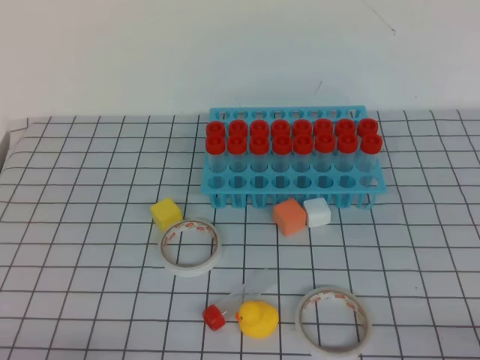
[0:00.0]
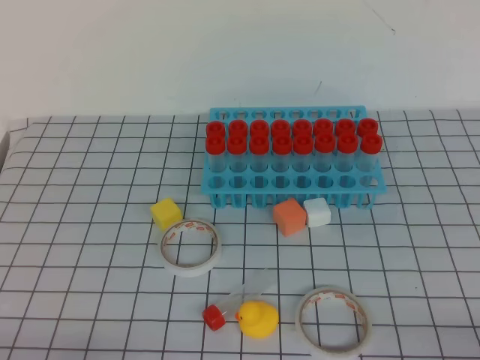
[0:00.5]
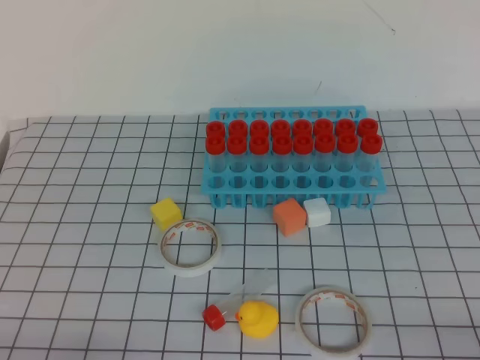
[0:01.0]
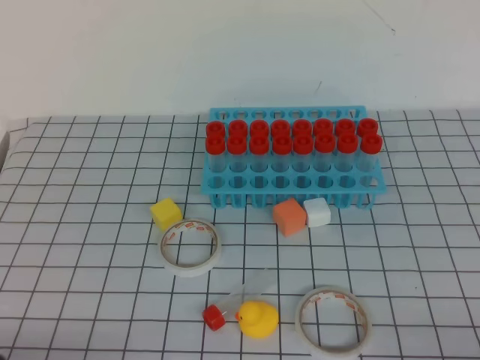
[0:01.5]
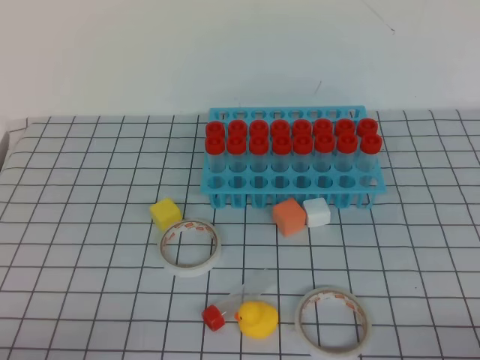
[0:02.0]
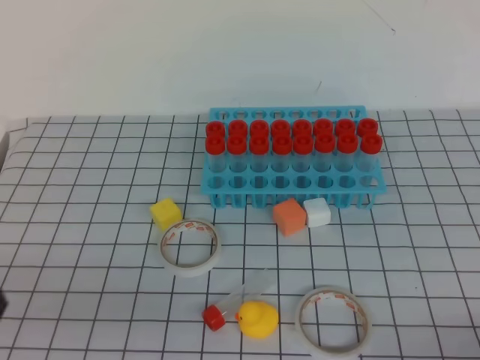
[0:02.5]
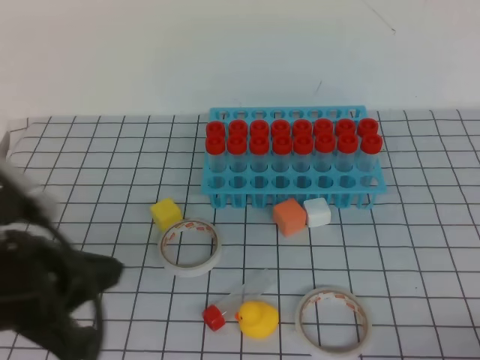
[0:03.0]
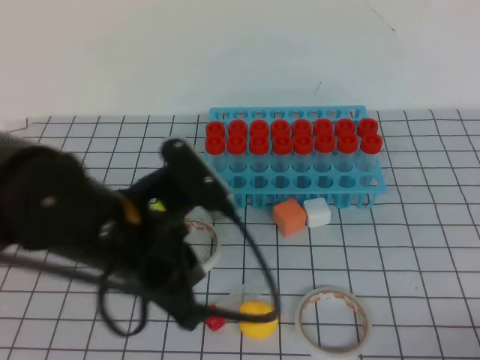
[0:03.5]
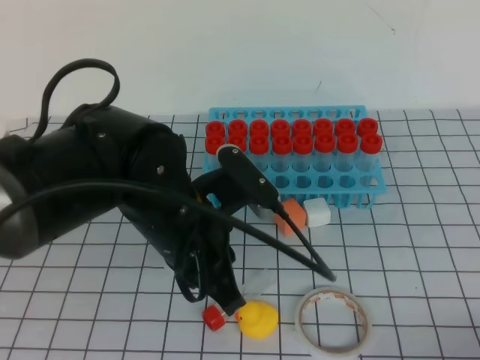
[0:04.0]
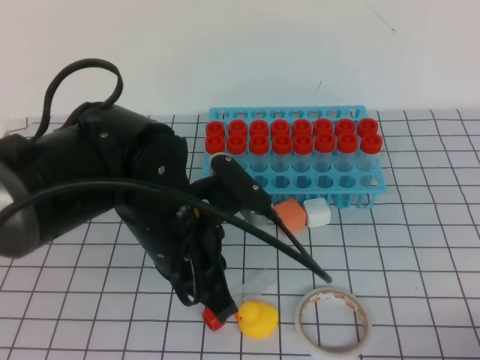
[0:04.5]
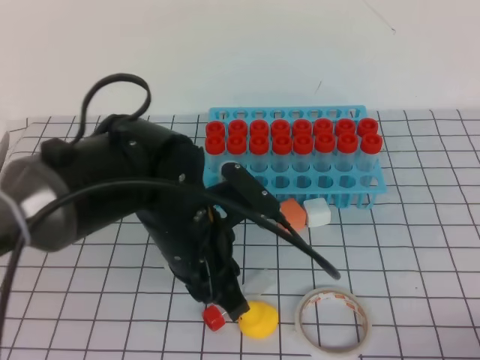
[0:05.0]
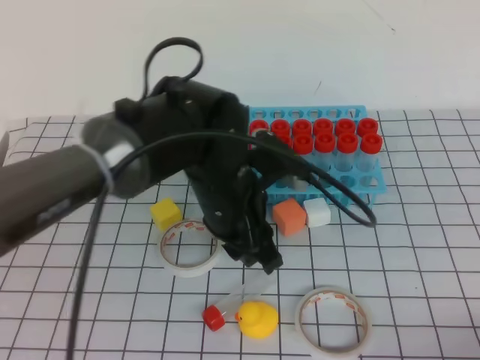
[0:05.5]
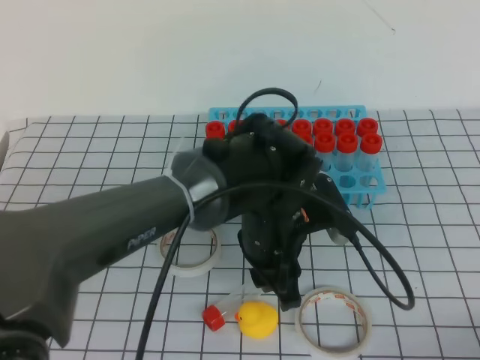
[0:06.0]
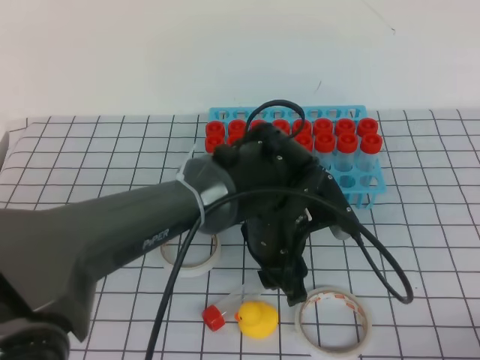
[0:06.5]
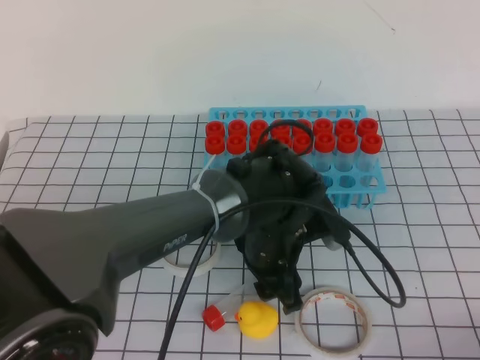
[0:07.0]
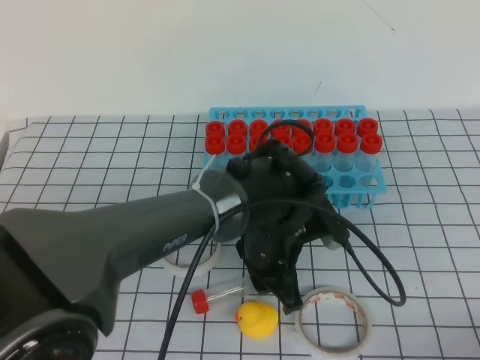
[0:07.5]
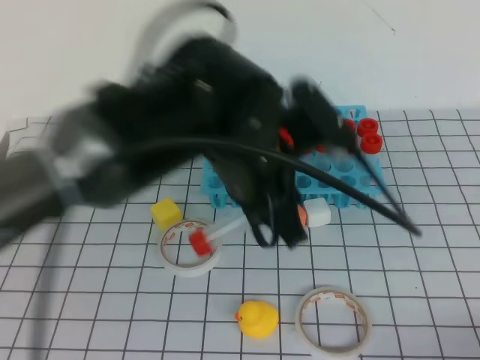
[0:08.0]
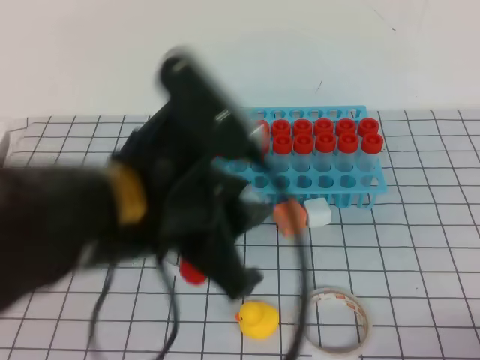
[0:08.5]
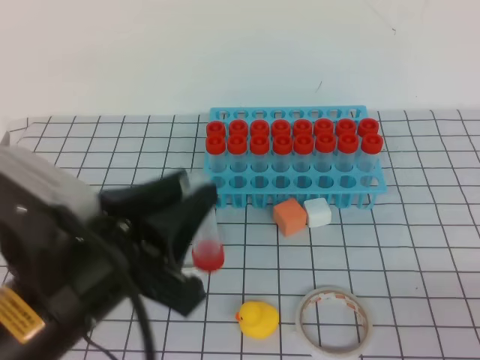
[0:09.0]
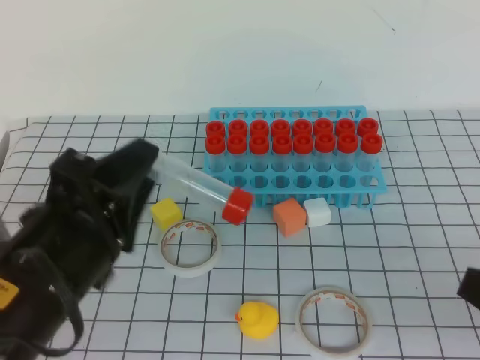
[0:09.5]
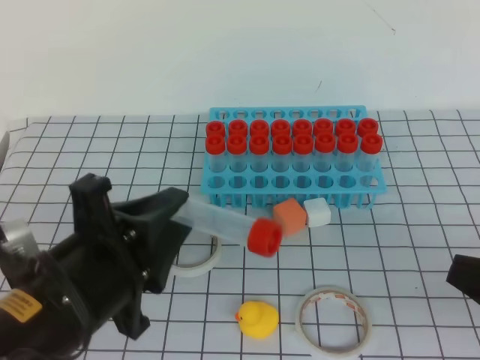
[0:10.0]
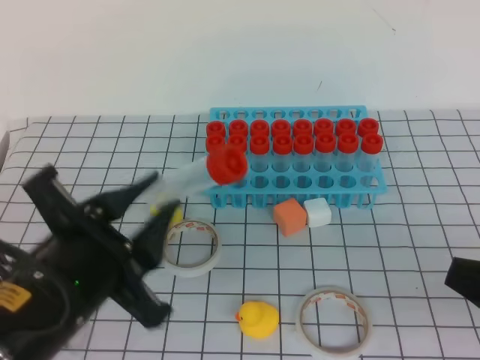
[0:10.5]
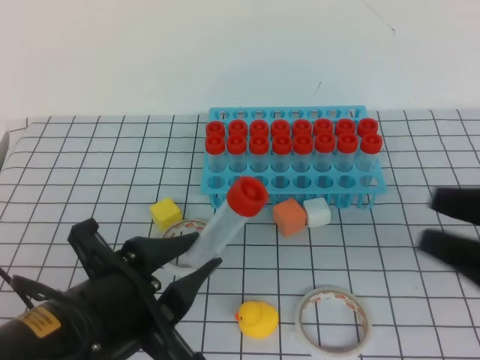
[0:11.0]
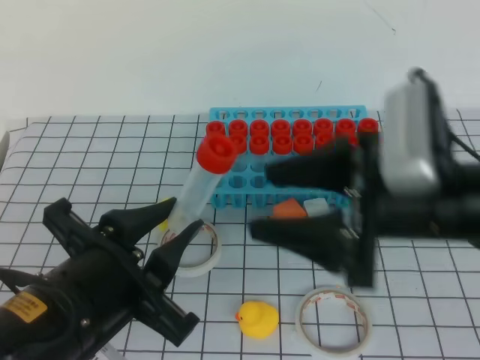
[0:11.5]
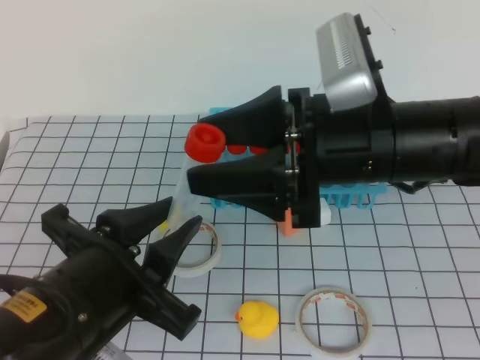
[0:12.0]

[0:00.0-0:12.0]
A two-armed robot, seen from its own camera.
2.0 to 4.0 s: The left gripper shifts approximately 30 cm forward, to the right and upward.
4.0 to 6.0 s: The left gripper moves to the right, downward and forward, approximately 10 cm, and opens its fingers.
6.0 to 8.0 s: The left gripper is displaced upward by roughly 10 cm, and opens, then closes again.
8.0 to 10.0 s: The right gripper is displaced upward and forward by roughly 10 cm. Meanwhile the left gripper goes roughly 20 cm to the left and backward.
10.0 to 12.0 s: The right gripper heads to the left and forward, covering about 20 cm, and opens its fingers.

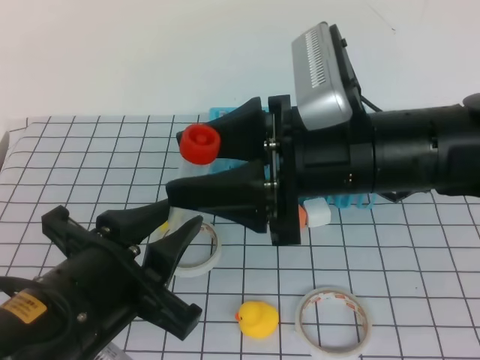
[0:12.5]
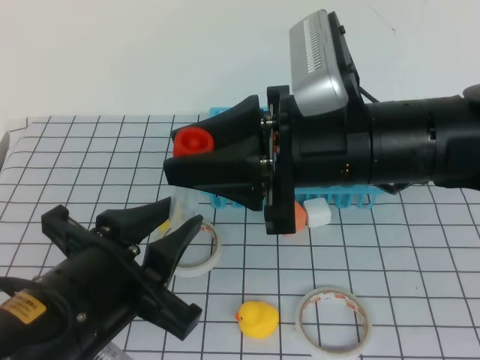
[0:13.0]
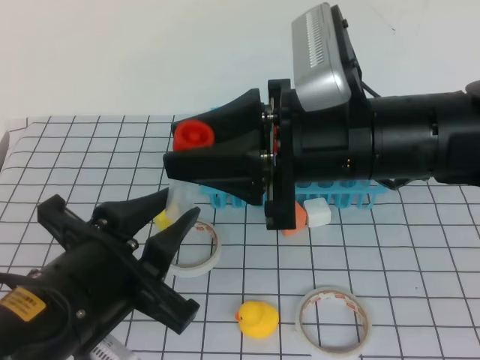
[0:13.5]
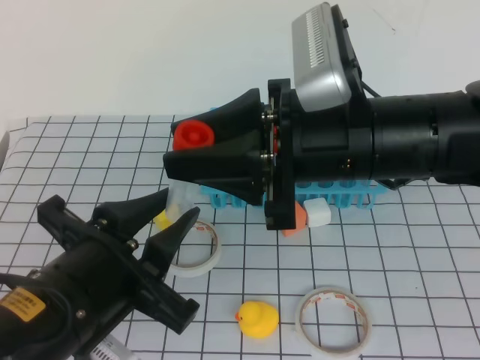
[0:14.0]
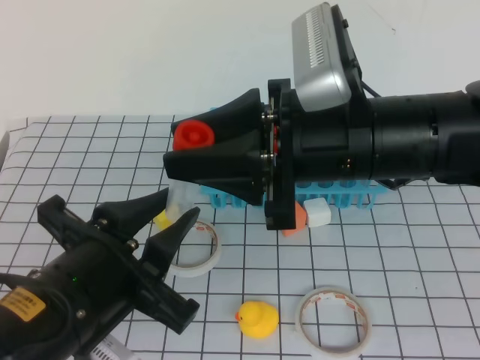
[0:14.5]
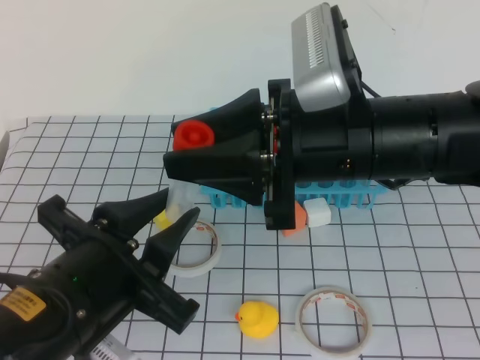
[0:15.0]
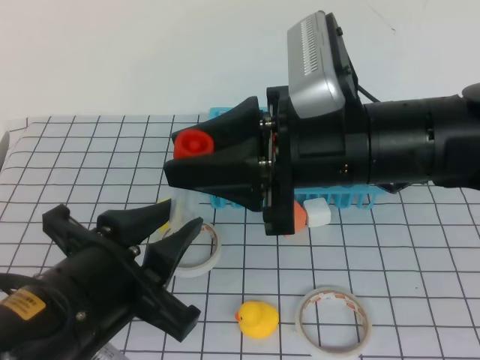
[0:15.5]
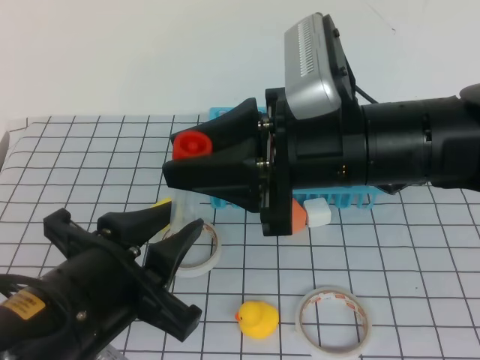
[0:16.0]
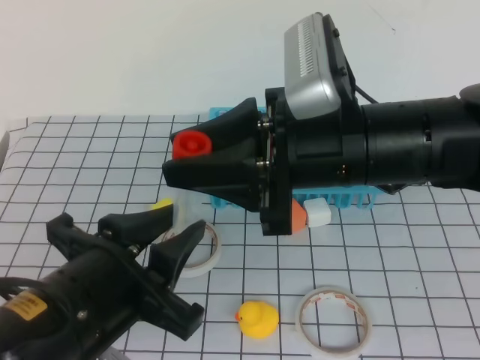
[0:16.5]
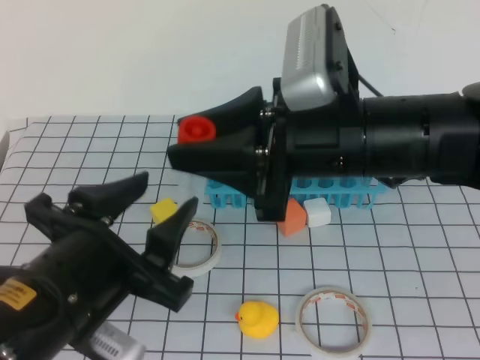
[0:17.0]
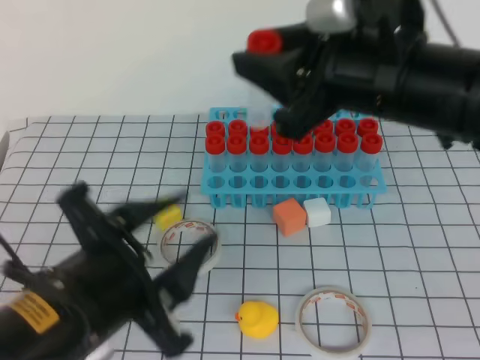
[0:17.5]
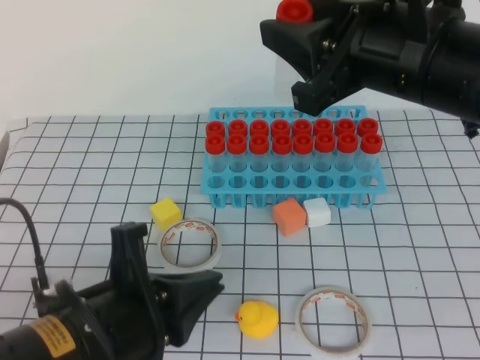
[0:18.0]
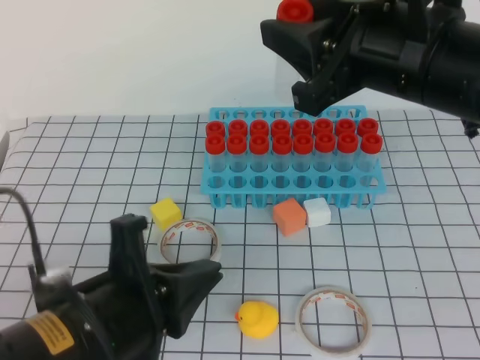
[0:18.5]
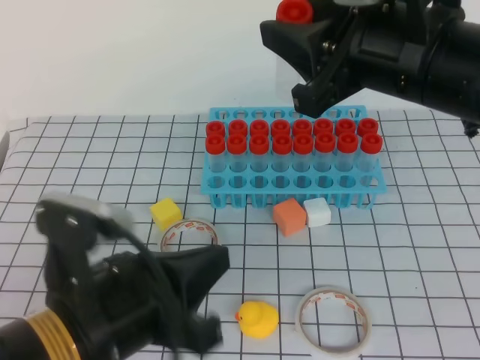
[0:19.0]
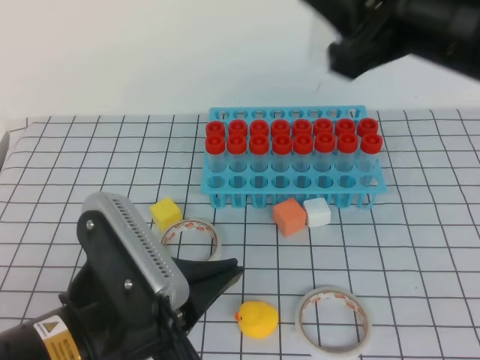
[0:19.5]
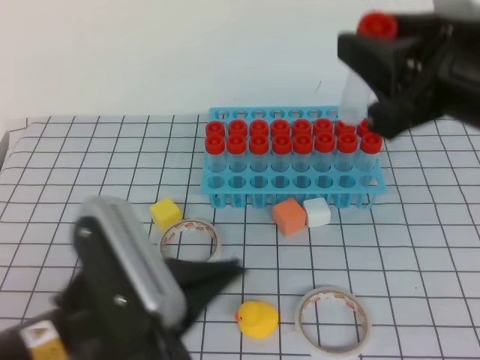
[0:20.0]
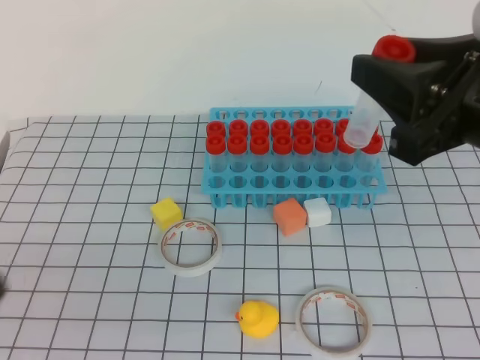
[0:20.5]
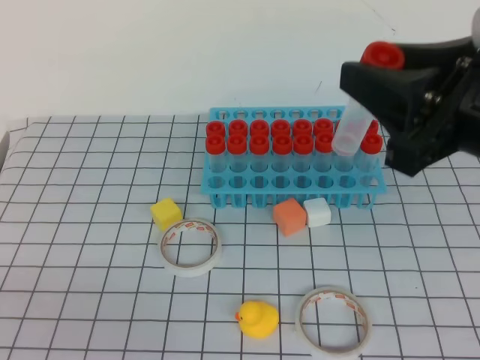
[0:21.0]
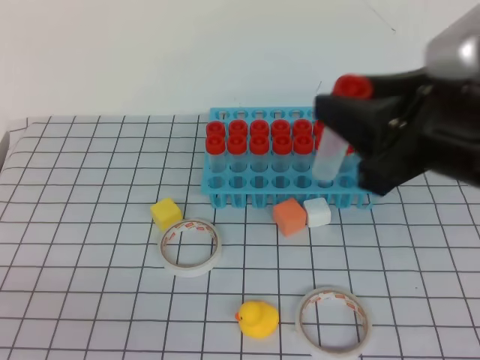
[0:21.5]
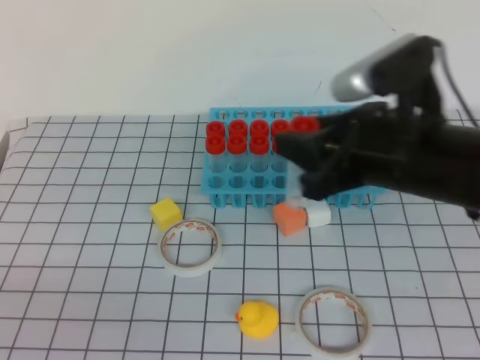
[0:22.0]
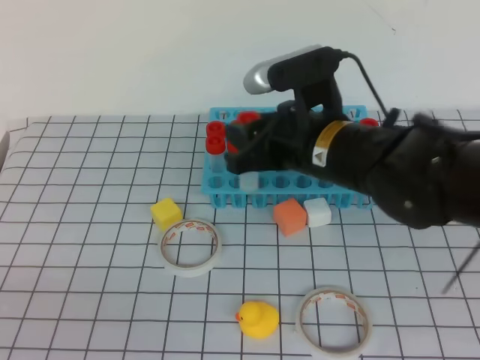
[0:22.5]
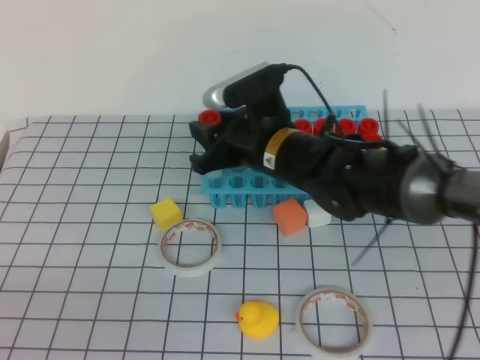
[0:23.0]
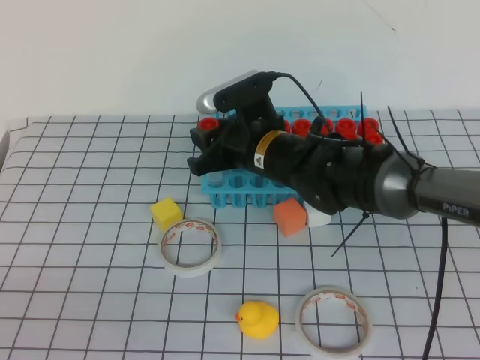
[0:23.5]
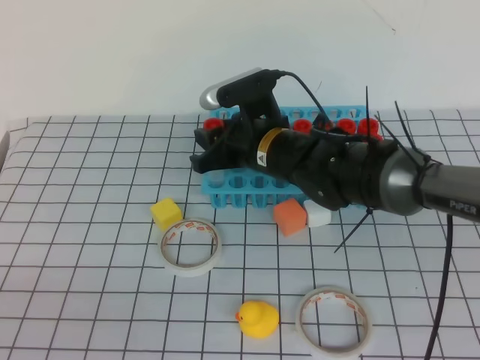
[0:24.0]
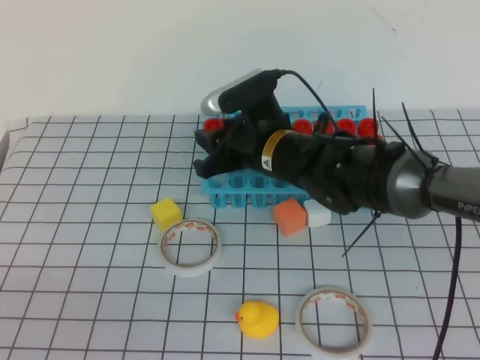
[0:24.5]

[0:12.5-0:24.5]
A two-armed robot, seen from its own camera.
12.5 to 14.5 s: The right gripper closes its fingers.
14.5 to 16.5 s: The grippers move only a little.
16.5 to 18.5 s: The right gripper goes some 5 cm to the right. Meanwhile the left gripper closes.
18.5 to 20.5 s: The left gripper moves to the left and backward, roughly 15 cm; the right gripper moves backward and to the right, some 10 cm.
20.5 to 22.5 s: The right gripper is displaced to the left, forward and downward by some 20 cm. Meanwhile the left gripper ends up about 5 cm from where it was.
22.5 to 24.5 s: The right gripper heads forward, downward and to the left, covering some 10 cm.

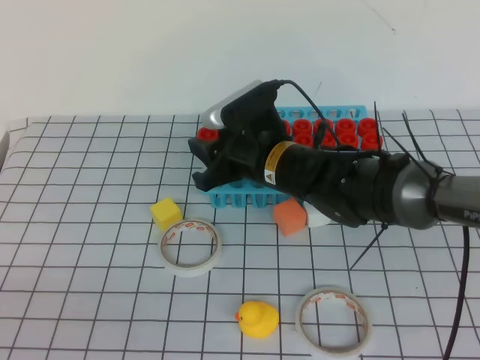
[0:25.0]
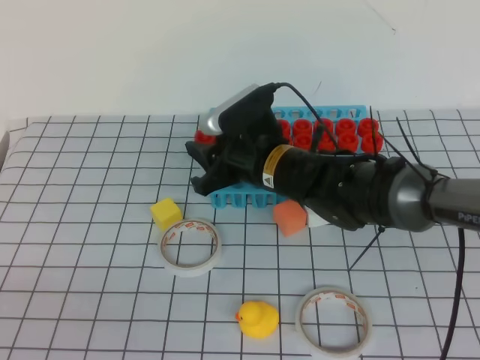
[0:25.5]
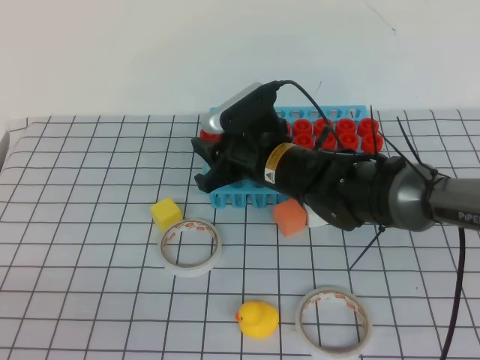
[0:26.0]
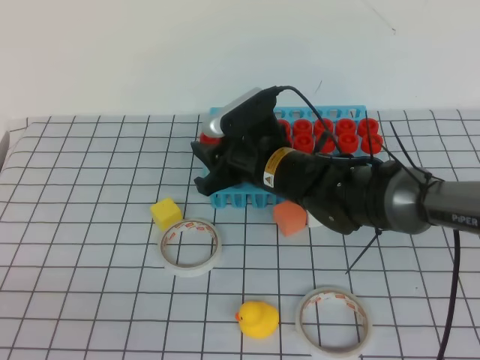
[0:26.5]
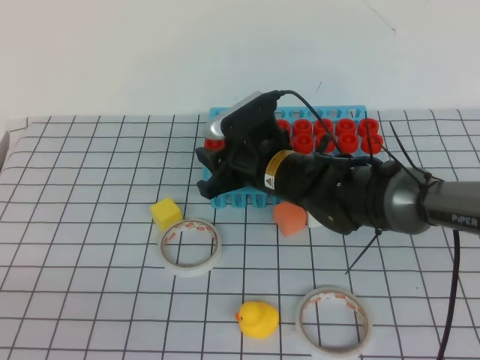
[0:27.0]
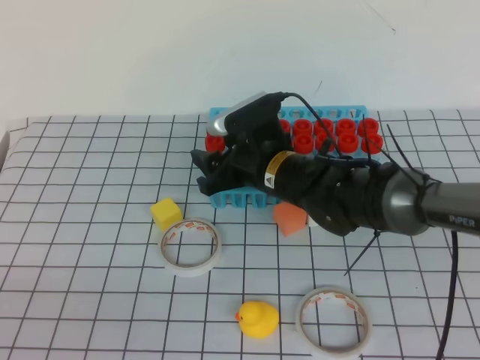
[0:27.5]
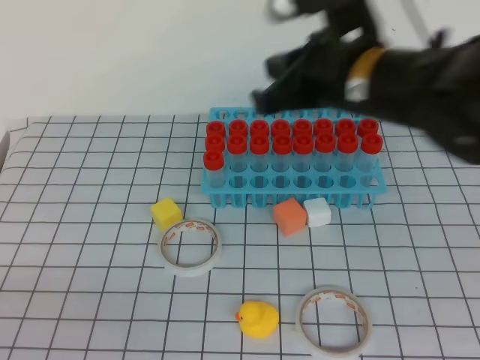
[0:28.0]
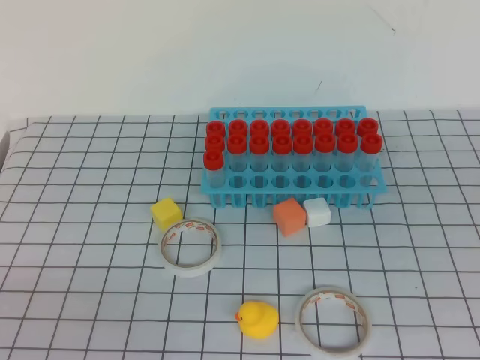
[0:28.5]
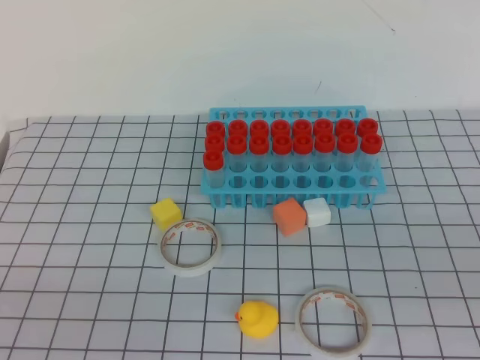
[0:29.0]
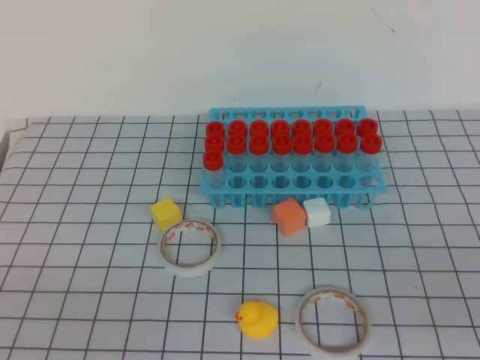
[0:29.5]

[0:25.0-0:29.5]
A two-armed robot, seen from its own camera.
25.0 to 27.0 s: The grippers move only a little.
27.0 to 29.5 s: The right gripper shifts approximately 40 cm backward and to the right, and closes up.
